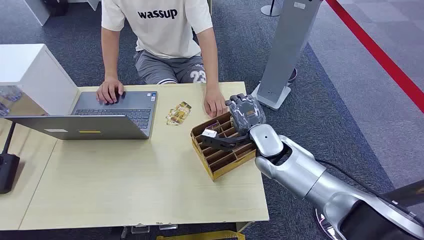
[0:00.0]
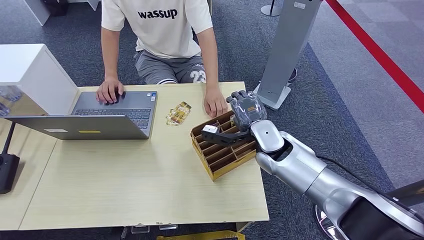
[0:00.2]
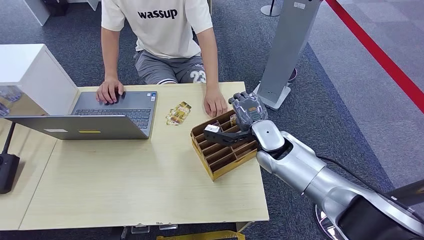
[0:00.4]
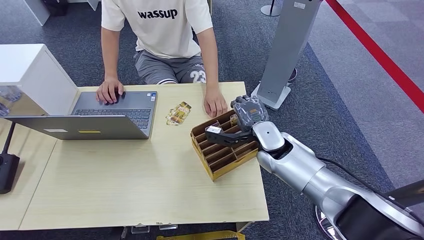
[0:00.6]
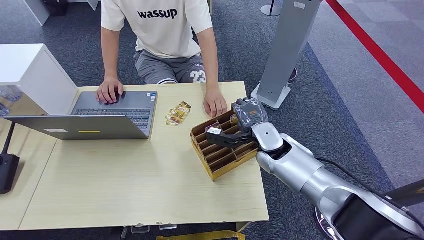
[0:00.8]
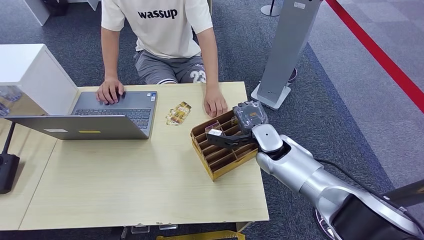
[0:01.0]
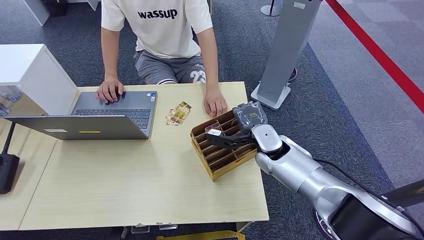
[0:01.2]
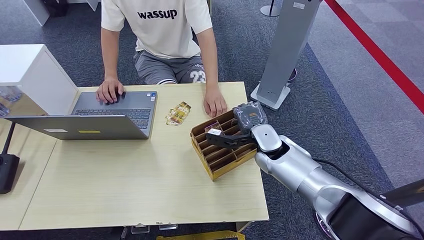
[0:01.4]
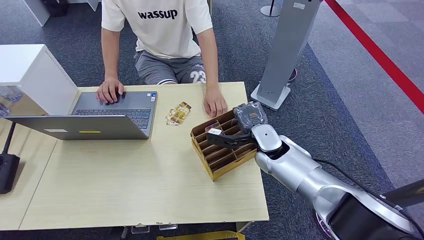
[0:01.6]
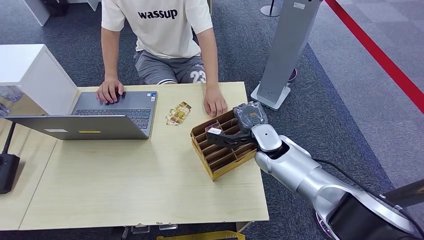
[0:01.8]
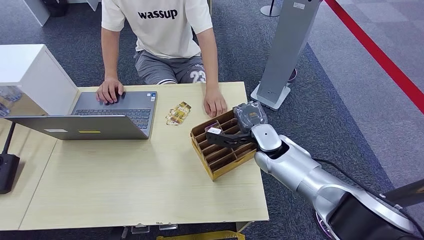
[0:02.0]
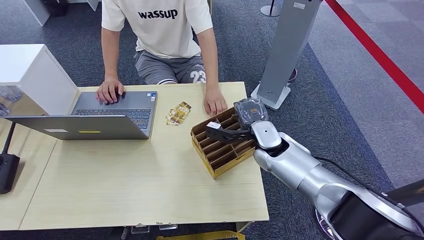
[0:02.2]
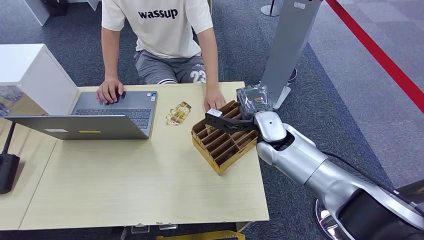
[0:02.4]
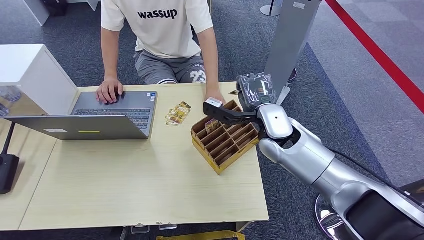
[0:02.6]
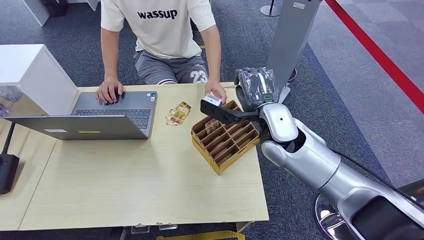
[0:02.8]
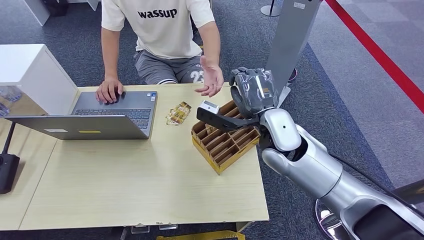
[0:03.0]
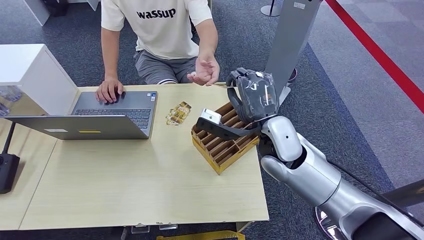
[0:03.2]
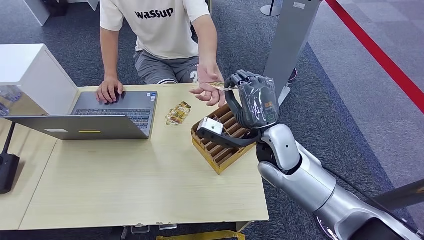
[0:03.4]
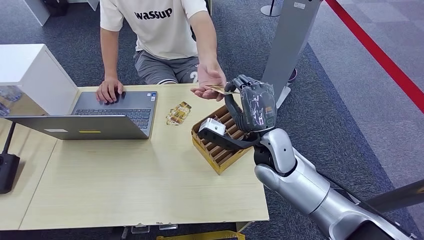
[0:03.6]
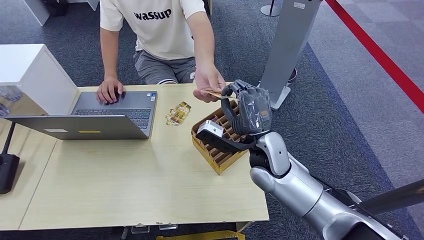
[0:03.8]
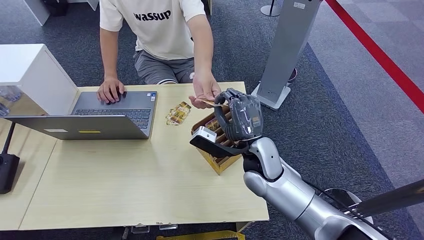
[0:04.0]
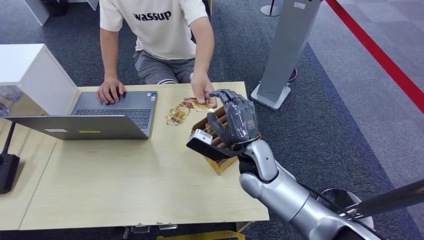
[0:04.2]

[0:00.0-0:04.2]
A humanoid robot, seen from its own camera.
Task of the whole recording: Pick up the card and hand it over to the target person.
Step, 0:00.0 to 0:01.8: Pick up the key card from the card box.
Step, 0:03.2 to 0:04.2: Hand the key card to the target.
0:01.4 to 0:02.8: The right hand goes some 15 cm upward.
0:02.8 to 0:04.2: The right hand heads downward, covering some 15 cm.
